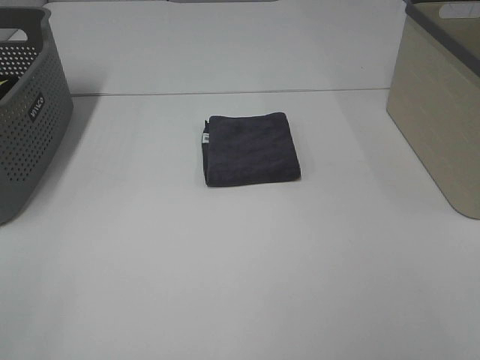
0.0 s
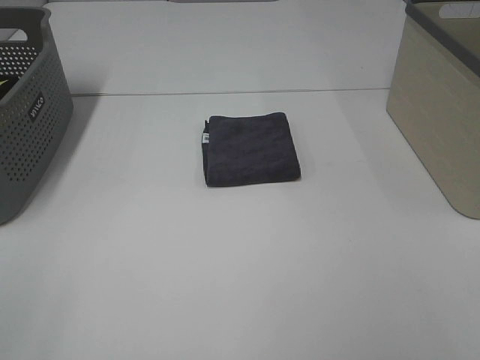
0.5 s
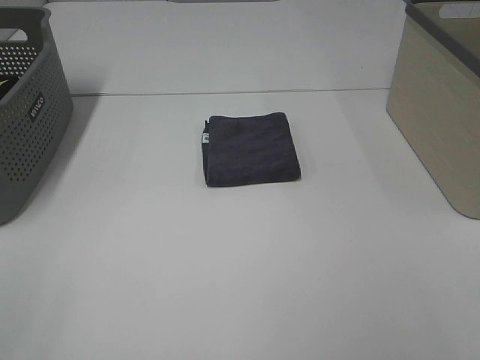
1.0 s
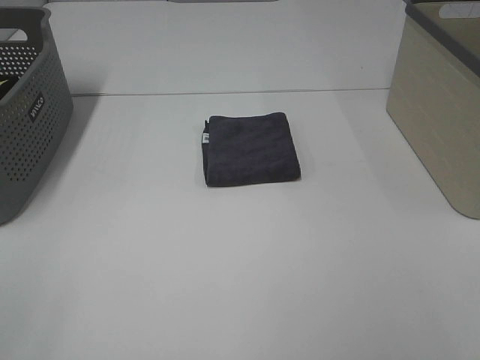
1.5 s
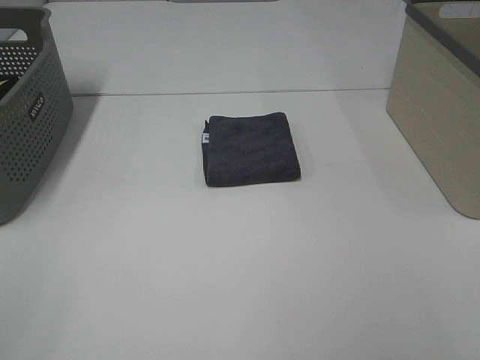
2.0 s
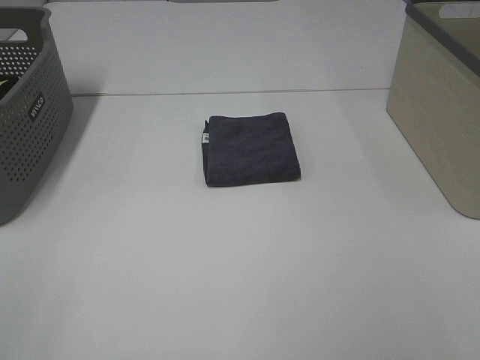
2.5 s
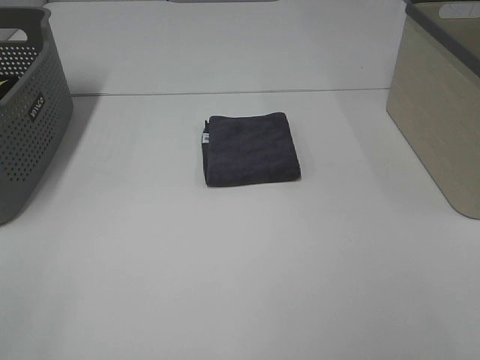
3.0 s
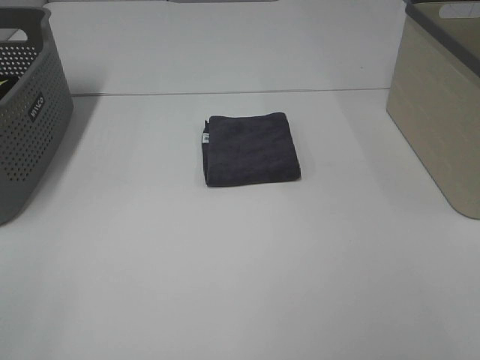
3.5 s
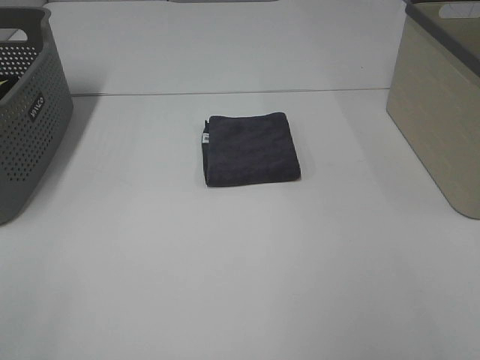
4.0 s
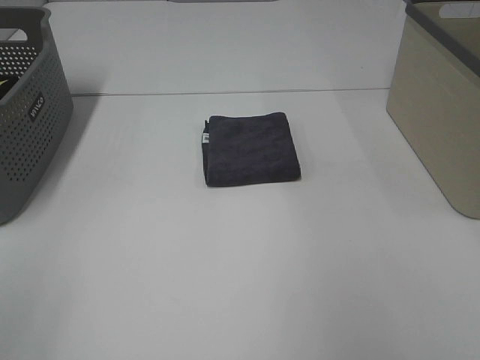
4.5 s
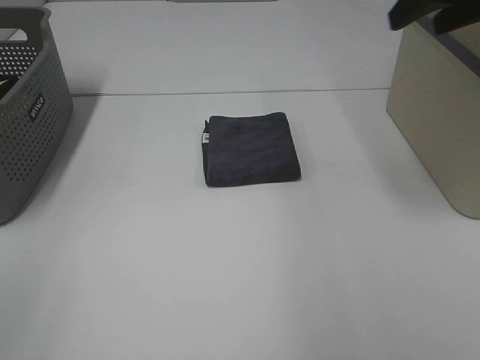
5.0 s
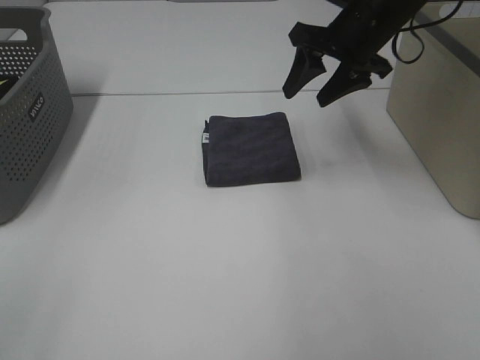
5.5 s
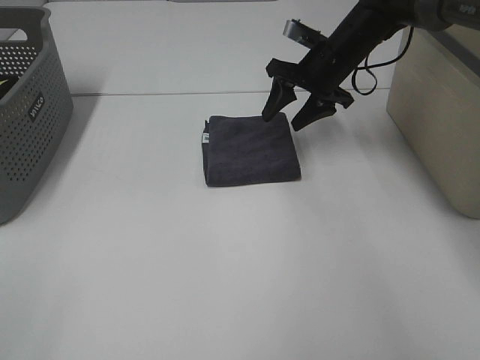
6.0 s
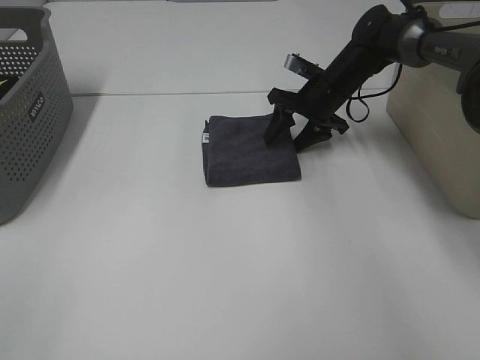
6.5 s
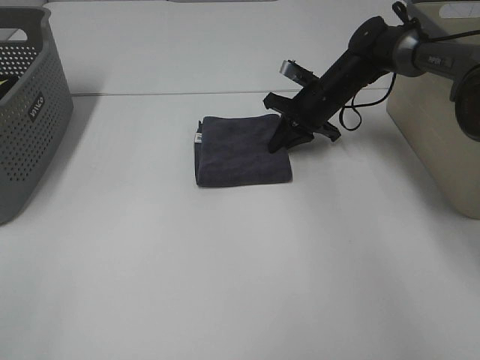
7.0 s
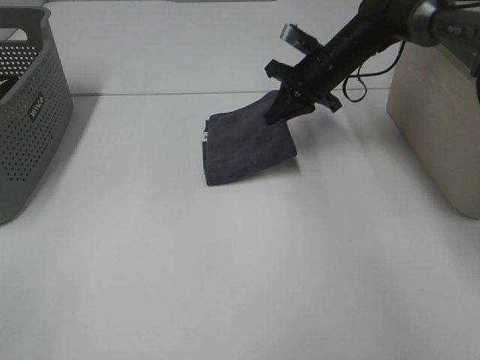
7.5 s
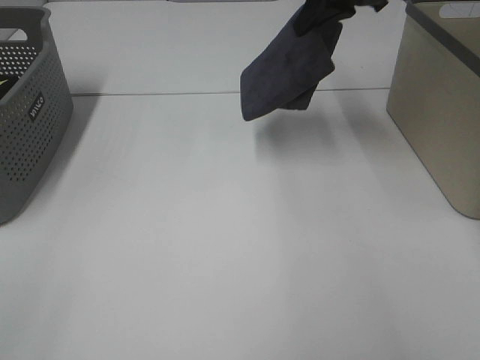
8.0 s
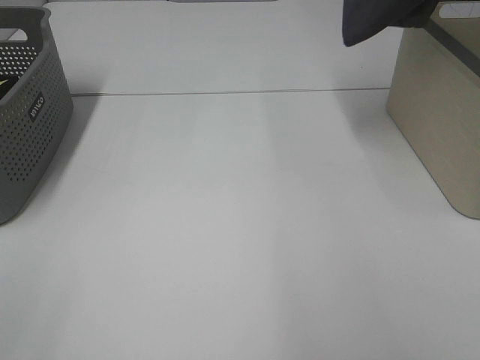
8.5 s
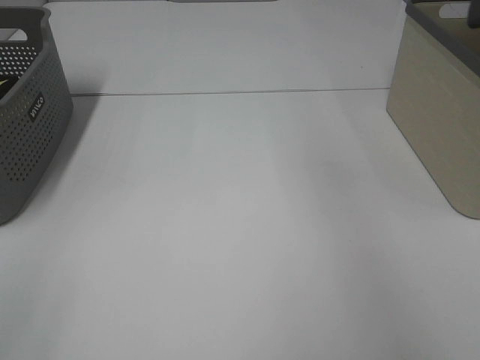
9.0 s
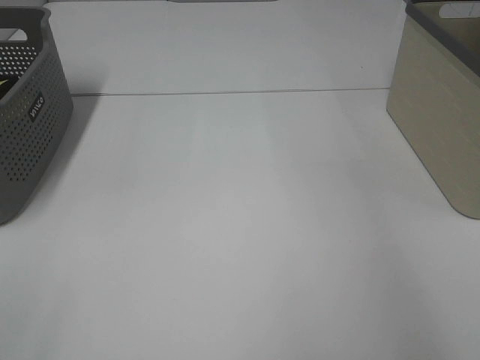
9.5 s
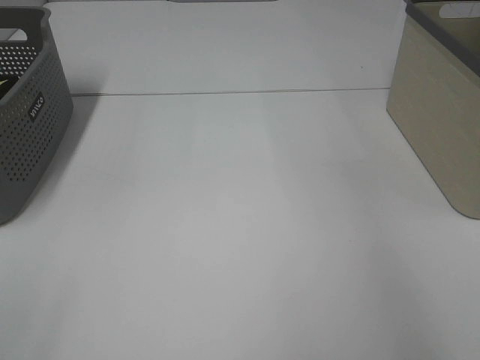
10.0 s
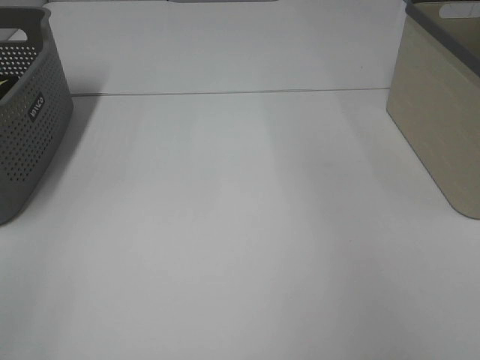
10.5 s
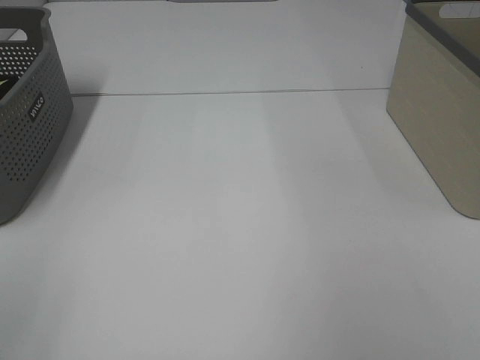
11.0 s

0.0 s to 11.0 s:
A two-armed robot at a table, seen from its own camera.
Step, 0.0 to 7.0 s: Right hand: grab the folded grey towel.
Step, 7.5 to 9.5 s: Right hand: place the grey towel in right basket.
0.0 to 3.5 s: Both grippers stay about where they are.
3.5 to 5.5 s: The right gripper is displaced forward by approximately 40 cm.
5.5 to 7.5 s: The right gripper shifts roughly 10 cm downward and forward, and closes.
7.5 to 9.0 s: The right gripper is displaced upward and to the right by approximately 35 cm.

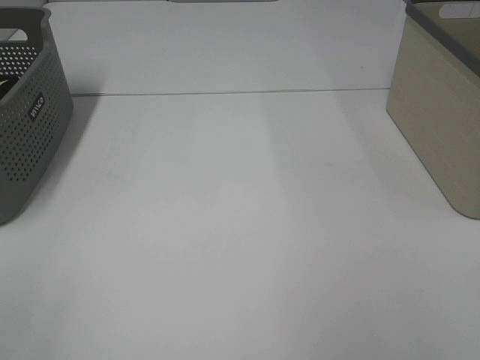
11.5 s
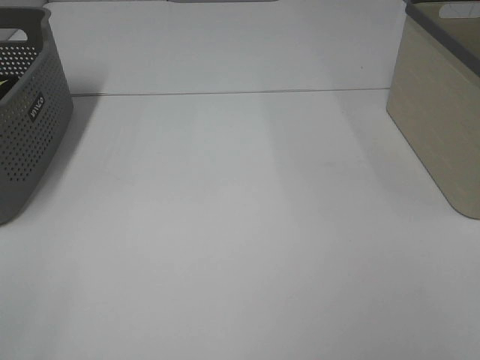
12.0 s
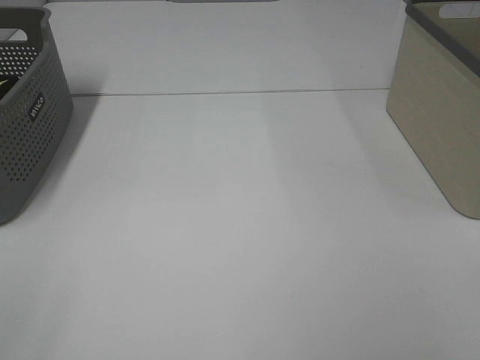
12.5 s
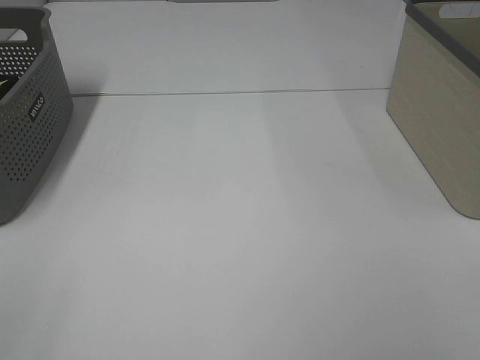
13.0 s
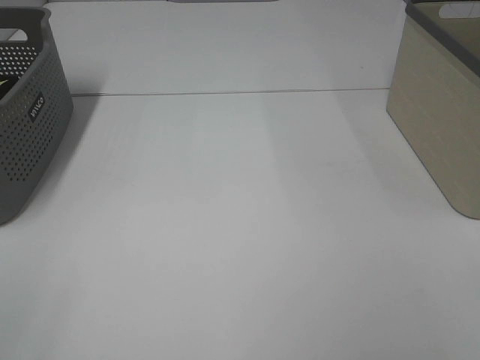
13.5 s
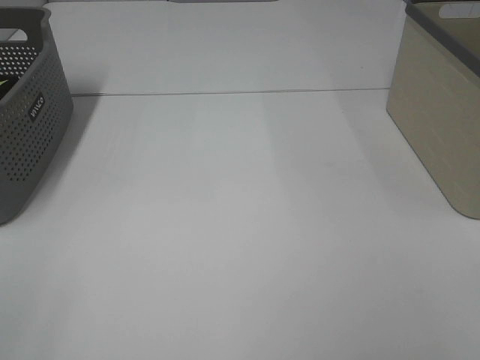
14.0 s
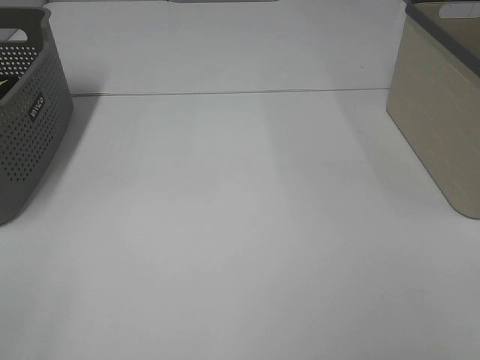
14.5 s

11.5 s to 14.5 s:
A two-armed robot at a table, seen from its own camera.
13.0 to 14.5 s: Both grippers stay put.

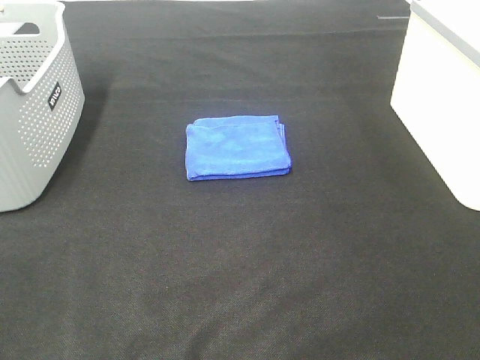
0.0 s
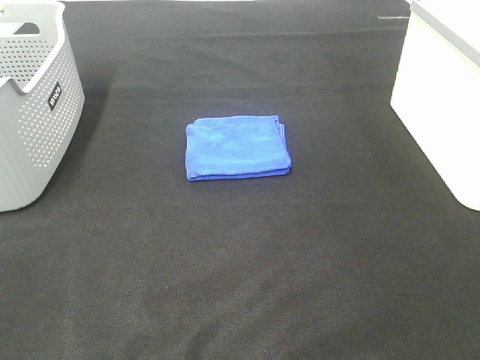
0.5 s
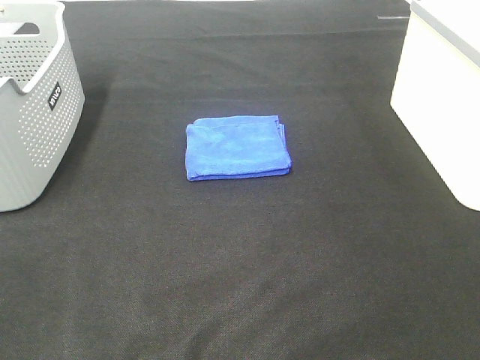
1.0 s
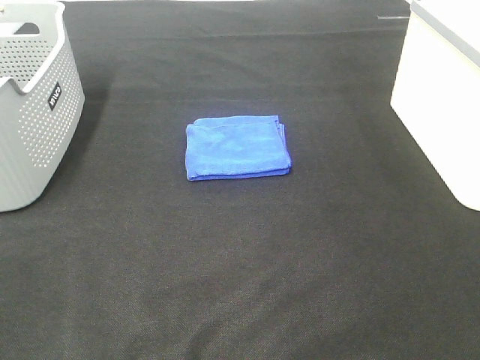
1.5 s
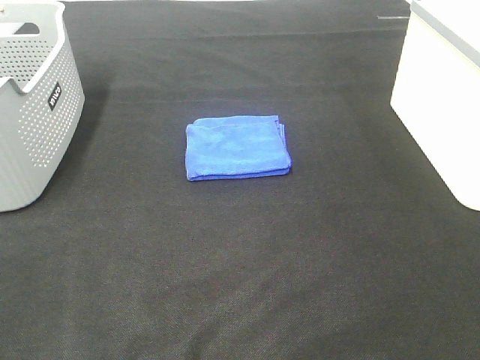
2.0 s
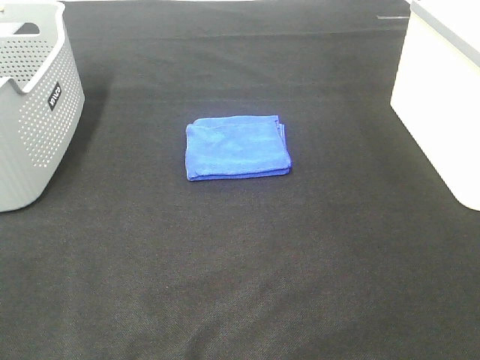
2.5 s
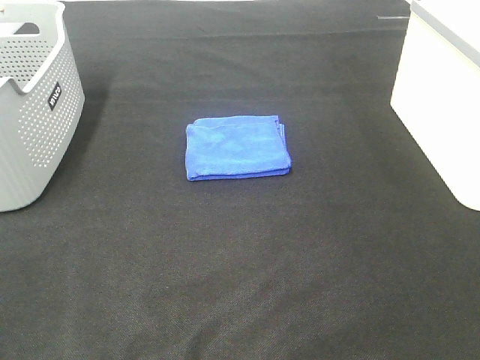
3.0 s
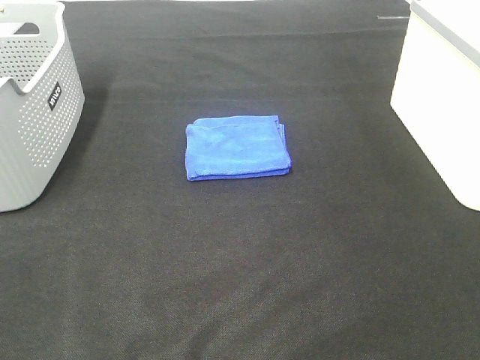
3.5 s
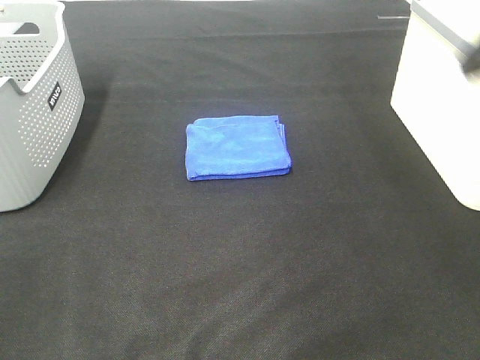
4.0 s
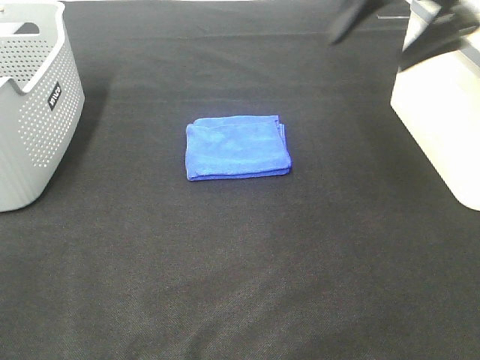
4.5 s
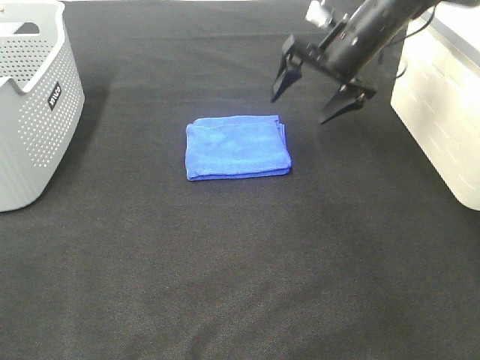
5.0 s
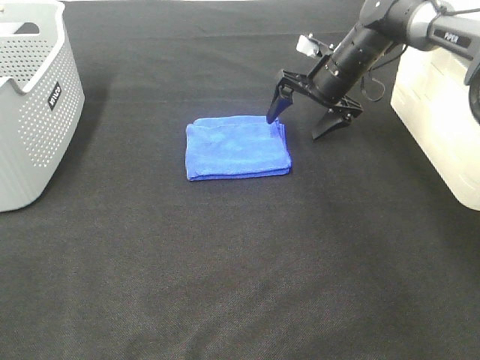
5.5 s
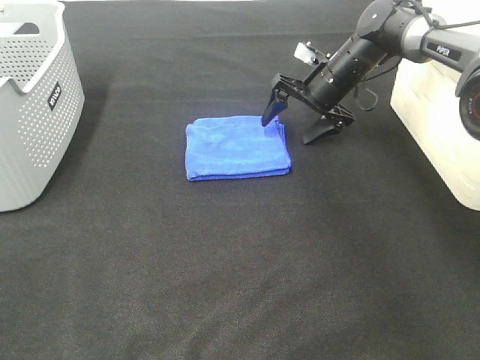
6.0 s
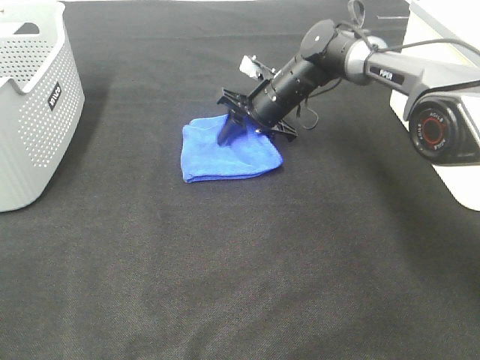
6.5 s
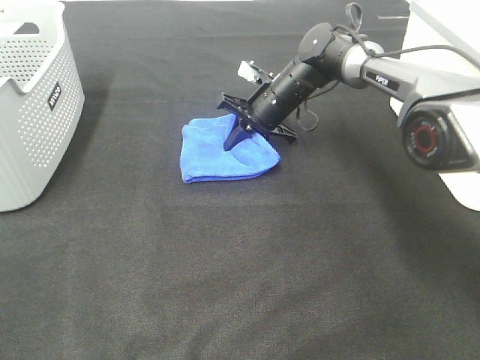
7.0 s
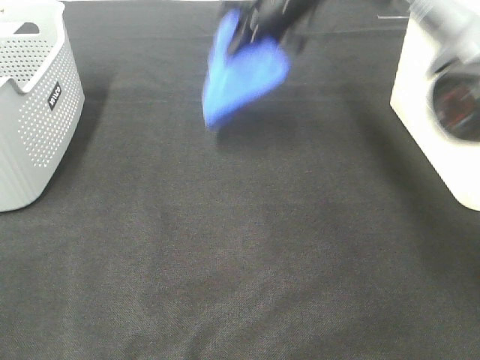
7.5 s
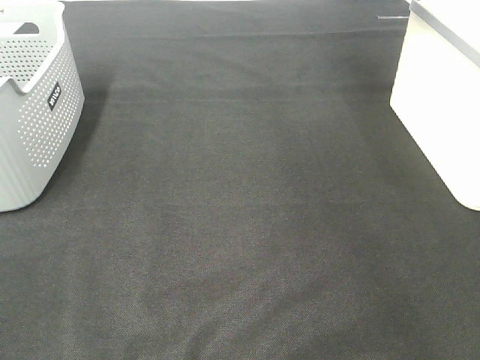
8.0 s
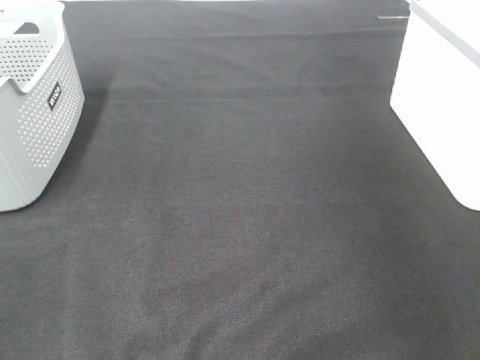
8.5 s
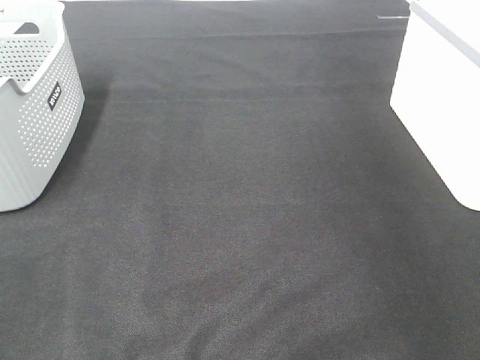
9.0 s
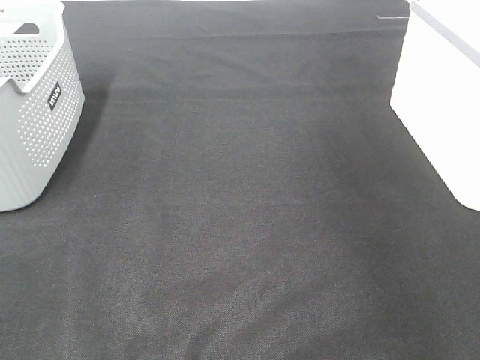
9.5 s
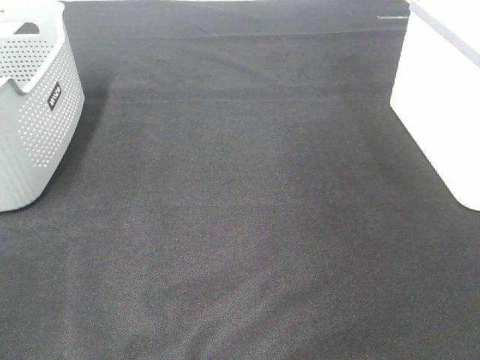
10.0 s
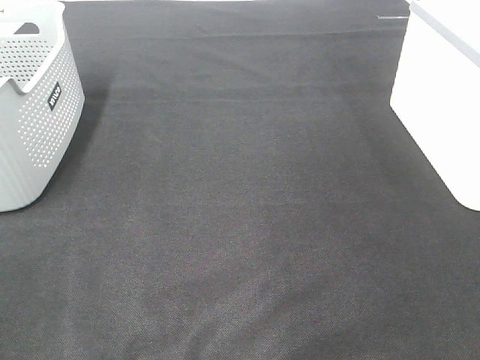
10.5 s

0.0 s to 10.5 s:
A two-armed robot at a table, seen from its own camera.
Step, 0.0 to 6.5 s: Right hand: grab the folded blue towel.
Step, 7.0 to 9.0 s: Right hand: place the blue towel in right basket.
0.0 to 2.0 s: Both grippers stay put.
4.0 to 6.5 s: The right gripper is displaced downward, forward and to the left by some 50 cm, and closes its fingers.
6.5 to 8.5 s: The right gripper moves to the right and upward, about 40 cm.

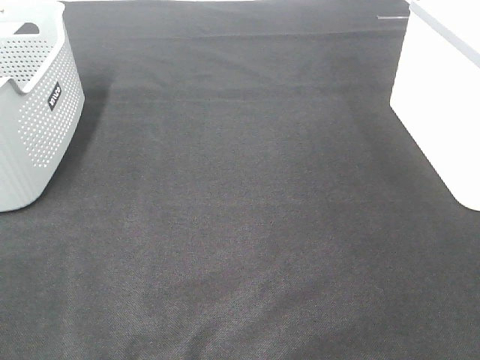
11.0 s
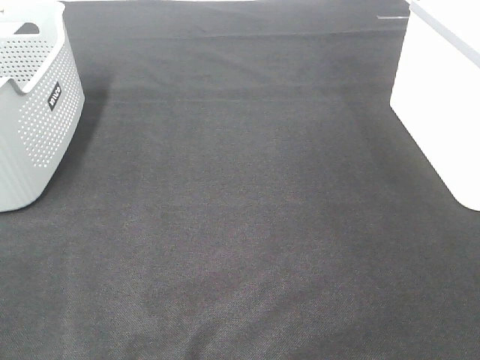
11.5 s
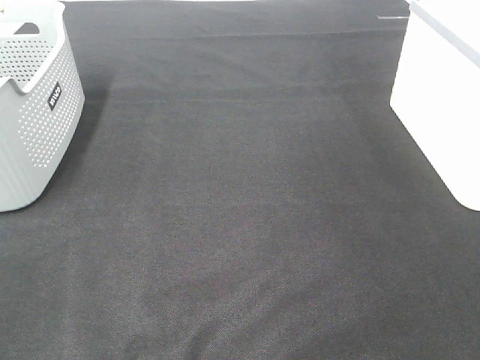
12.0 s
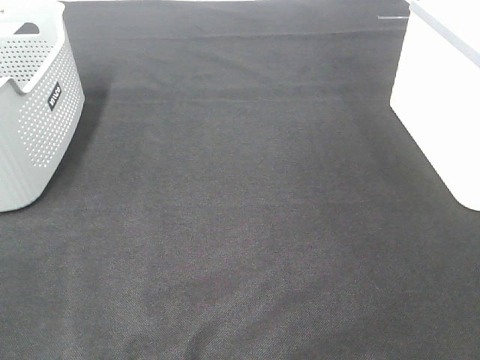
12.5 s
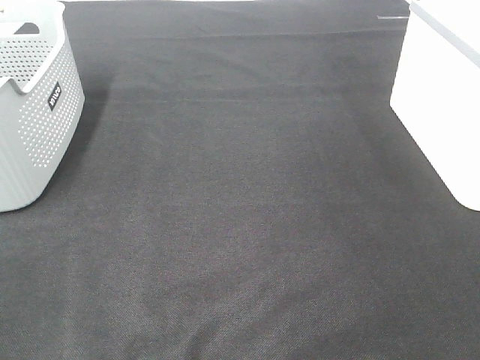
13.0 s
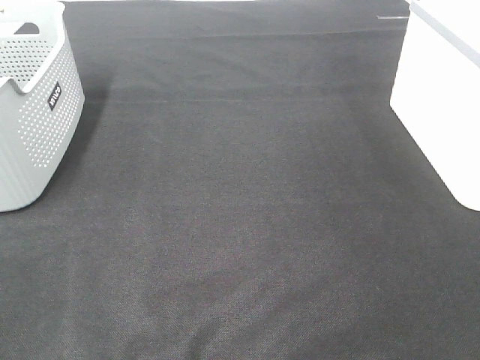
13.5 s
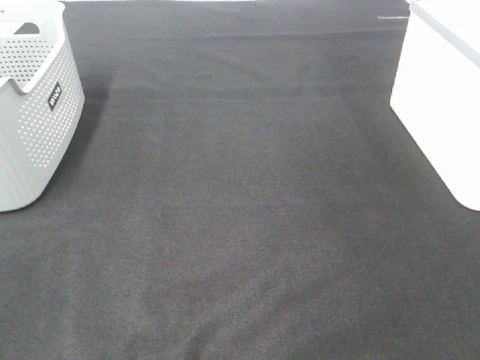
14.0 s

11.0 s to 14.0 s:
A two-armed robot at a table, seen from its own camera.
12.5 to 14.0 s: Both grippers stay about where they are.
